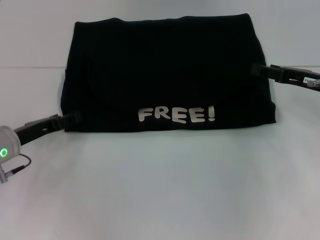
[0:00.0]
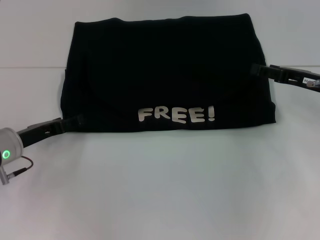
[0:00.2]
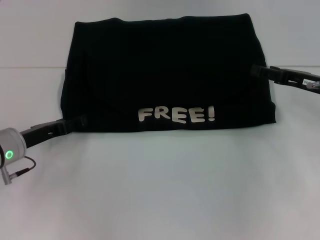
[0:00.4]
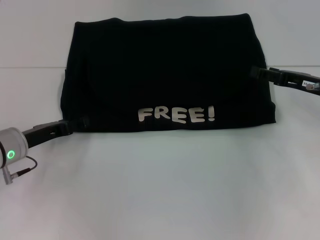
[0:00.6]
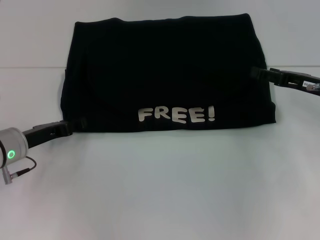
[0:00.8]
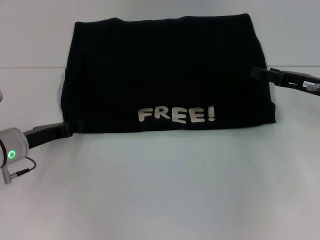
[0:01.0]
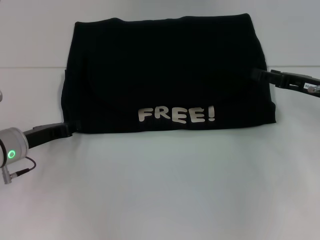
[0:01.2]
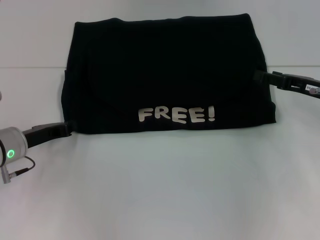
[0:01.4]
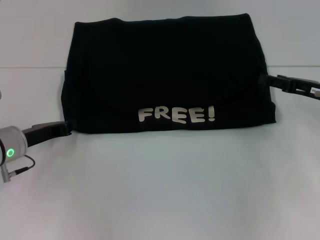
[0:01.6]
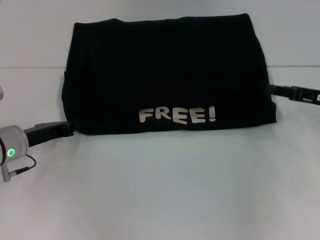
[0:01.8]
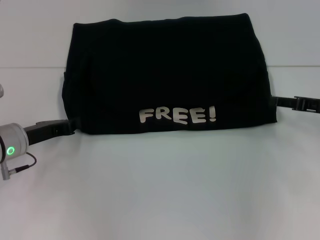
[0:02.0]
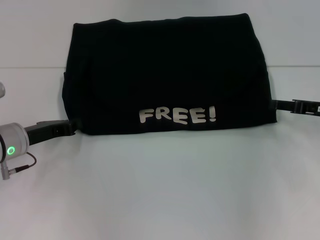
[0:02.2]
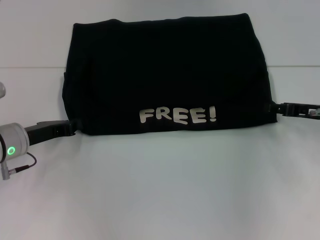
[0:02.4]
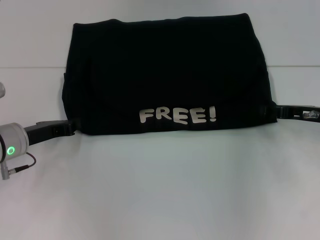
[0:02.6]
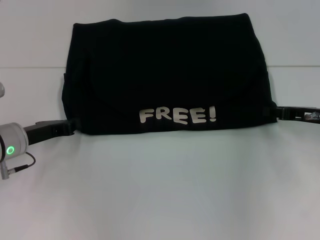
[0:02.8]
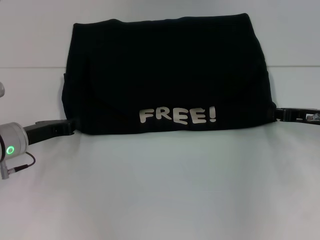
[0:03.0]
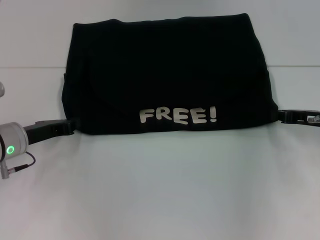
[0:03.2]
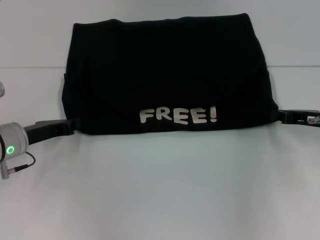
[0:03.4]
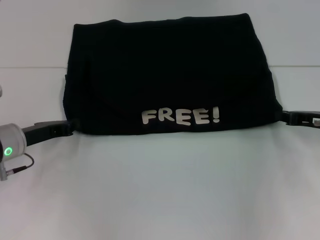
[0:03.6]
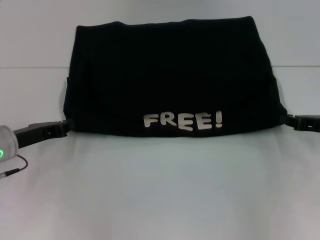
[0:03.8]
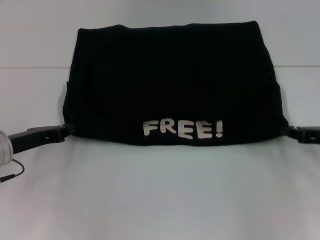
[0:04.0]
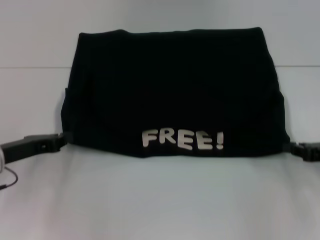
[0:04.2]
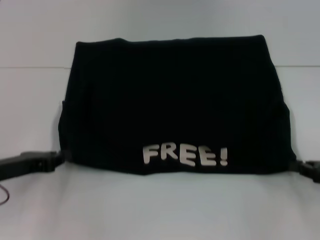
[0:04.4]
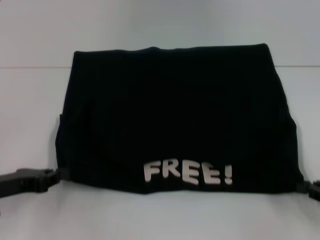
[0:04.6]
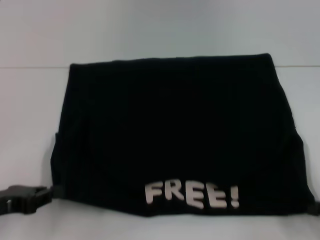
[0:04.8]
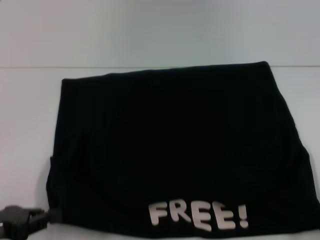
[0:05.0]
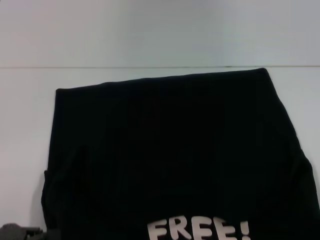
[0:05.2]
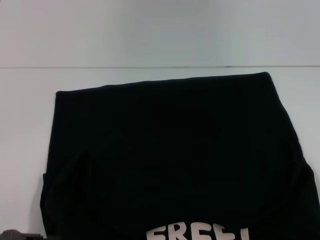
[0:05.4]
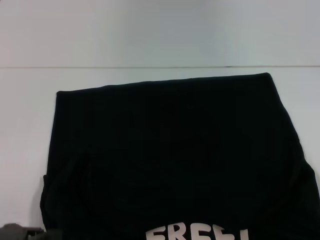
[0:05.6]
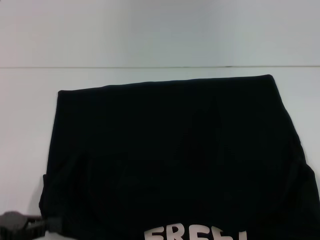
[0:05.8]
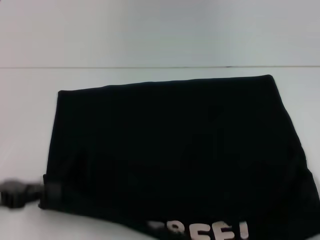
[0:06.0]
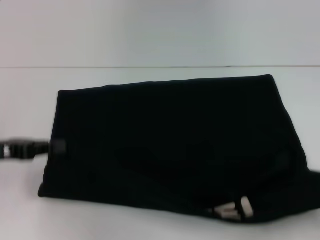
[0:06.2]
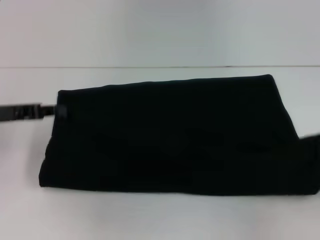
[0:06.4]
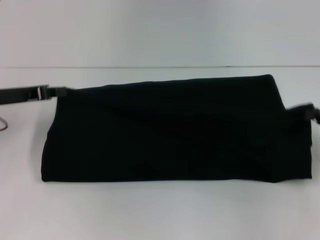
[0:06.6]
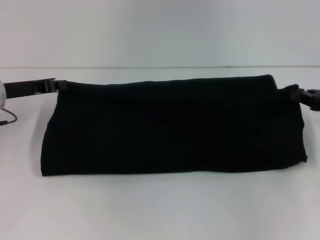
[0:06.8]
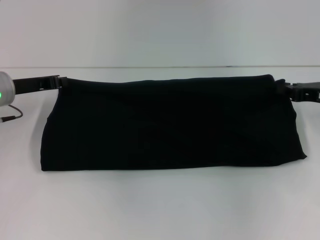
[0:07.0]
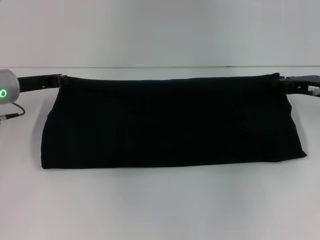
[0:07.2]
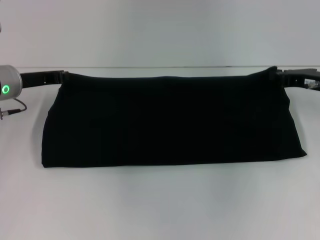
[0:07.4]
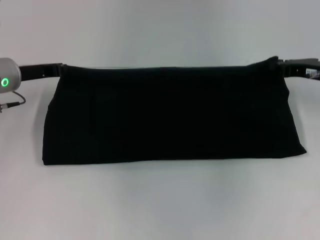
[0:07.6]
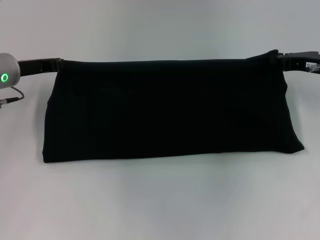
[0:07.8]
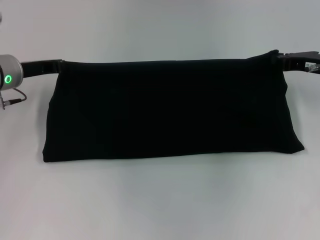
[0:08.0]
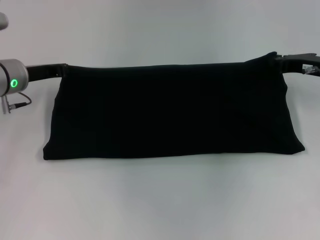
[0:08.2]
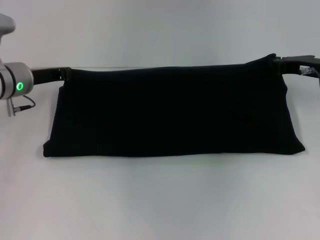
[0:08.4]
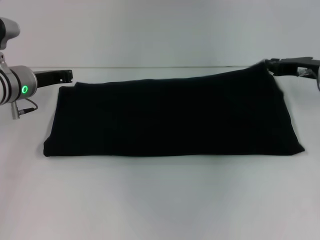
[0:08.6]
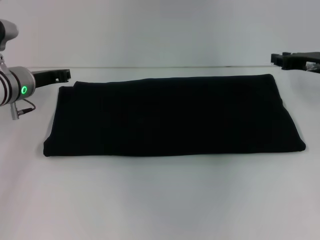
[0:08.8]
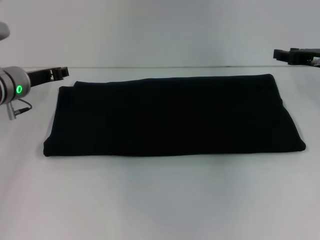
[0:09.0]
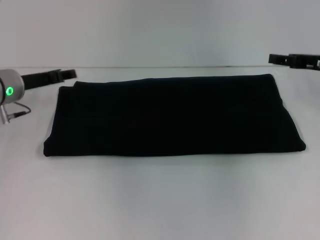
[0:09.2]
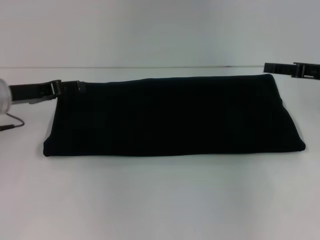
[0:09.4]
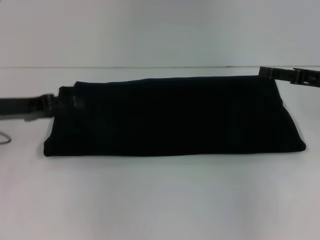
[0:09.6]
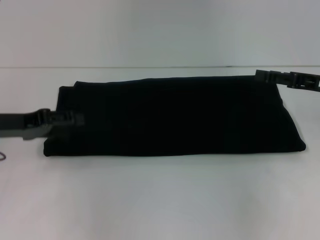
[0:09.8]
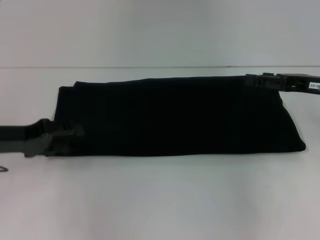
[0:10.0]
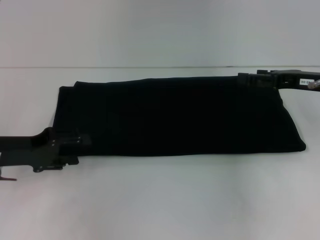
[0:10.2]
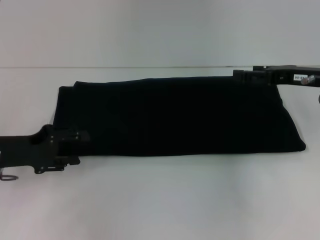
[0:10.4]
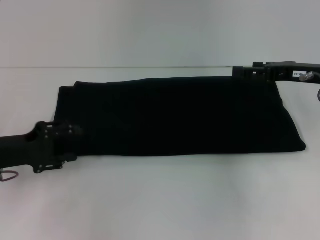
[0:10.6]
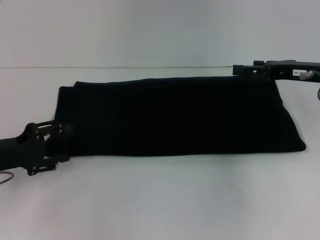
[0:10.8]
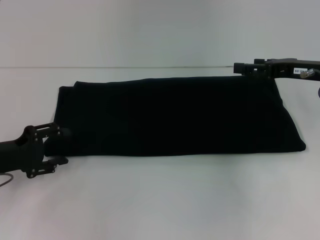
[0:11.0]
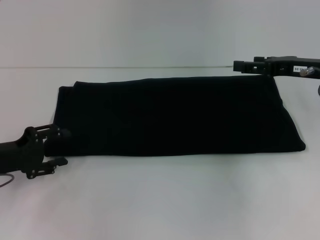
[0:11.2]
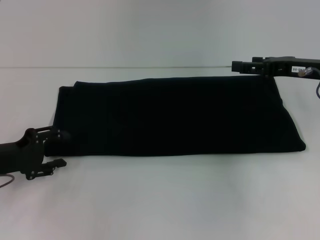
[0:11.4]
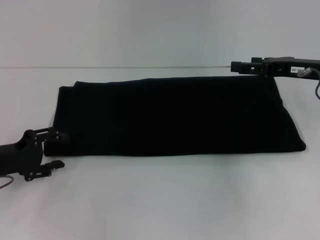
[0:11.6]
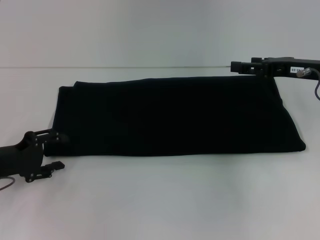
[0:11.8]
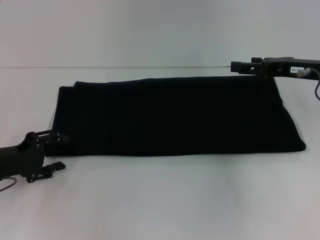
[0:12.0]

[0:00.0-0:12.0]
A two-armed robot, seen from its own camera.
Step, 0:00.0 to 0:05.0: Pull the clothes with your left hand.
Step, 0:00.0 to 0:05.0: Pull the clothes with your right hand.
Step, 0:05.2 to 0:09.6: Fold the clothes with your right hand.
0:00.0 to 0:01.6: The left gripper closes up.
0:01.6 to 0:03.0: The right gripper closes.
0:03.0 to 0:04.4: The left gripper moves backward, approximately 5 cm. The right gripper moves backward and to the right, approximately 10 cm.
0:04.4 to 0:06.0: The left gripper shifts roughly 5 cm backward, while the right gripper travels backward by approximately 10 cm.
0:06.0 to 0:07.6: Both grippers move forward, some 20 cm.
0:07.6 to 0:09.0: The grippers stay close to where they were, moving slightly.
0:09.0 to 0:10.4: The right gripper opens. The left gripper moves backward, about 10 cm, and opens its fingers.

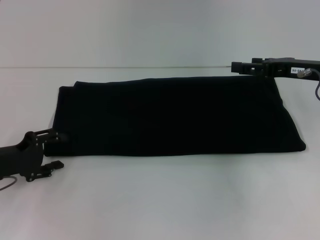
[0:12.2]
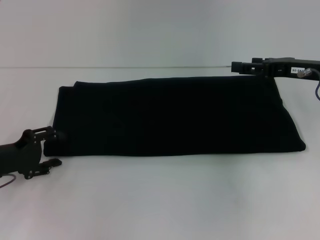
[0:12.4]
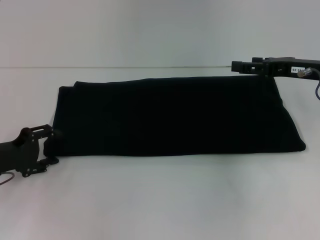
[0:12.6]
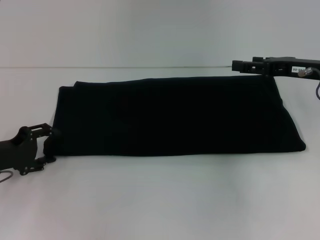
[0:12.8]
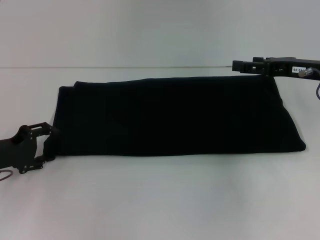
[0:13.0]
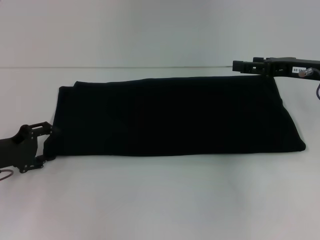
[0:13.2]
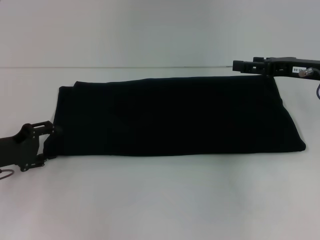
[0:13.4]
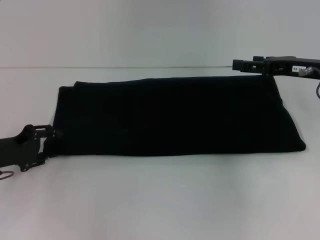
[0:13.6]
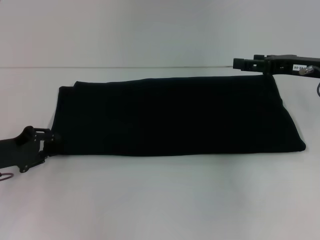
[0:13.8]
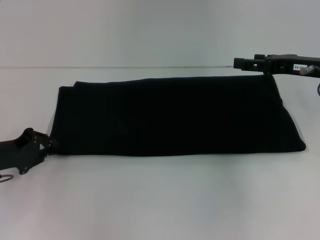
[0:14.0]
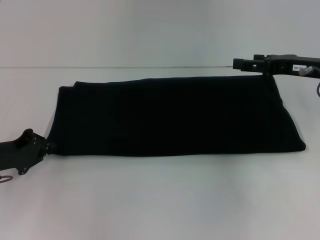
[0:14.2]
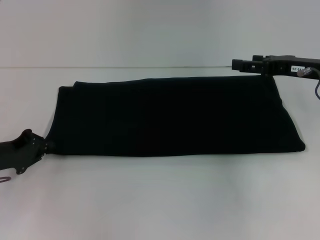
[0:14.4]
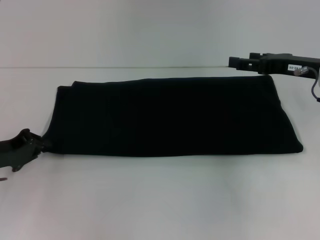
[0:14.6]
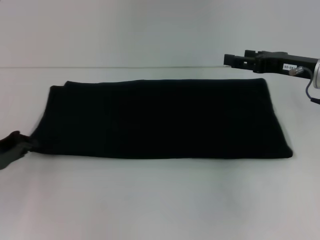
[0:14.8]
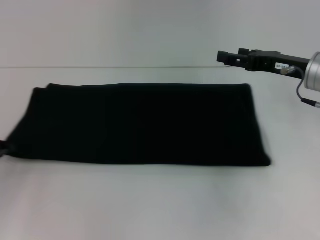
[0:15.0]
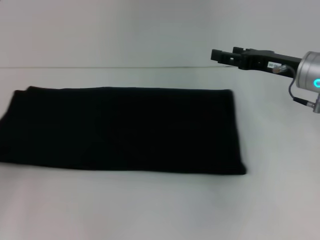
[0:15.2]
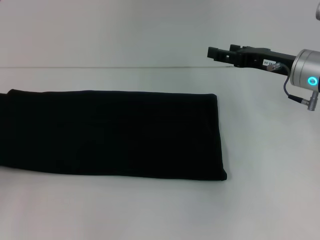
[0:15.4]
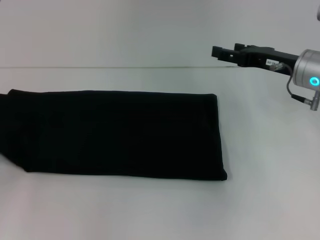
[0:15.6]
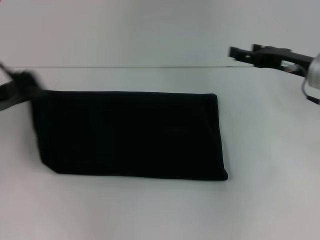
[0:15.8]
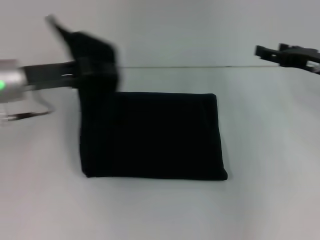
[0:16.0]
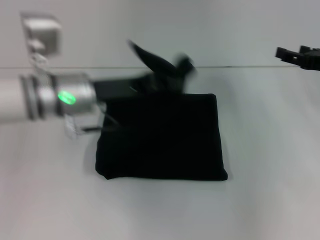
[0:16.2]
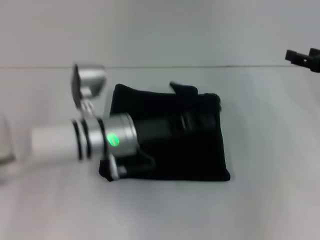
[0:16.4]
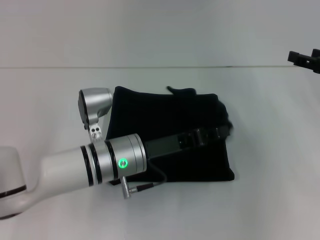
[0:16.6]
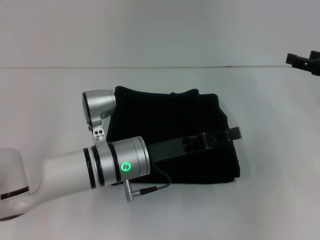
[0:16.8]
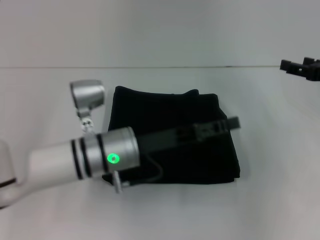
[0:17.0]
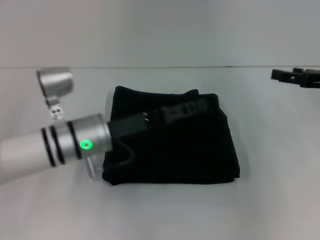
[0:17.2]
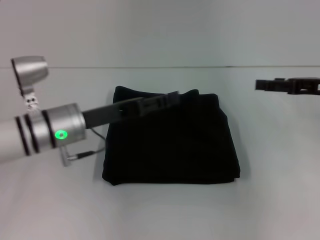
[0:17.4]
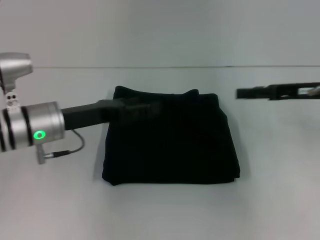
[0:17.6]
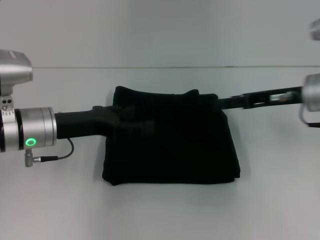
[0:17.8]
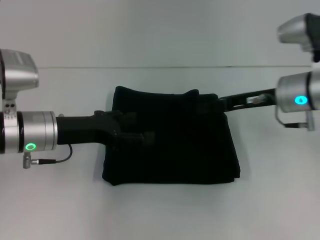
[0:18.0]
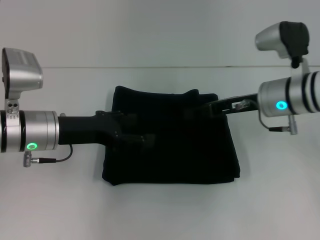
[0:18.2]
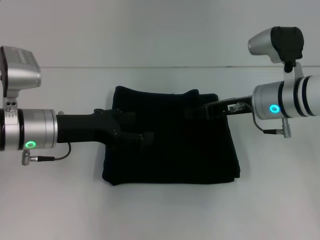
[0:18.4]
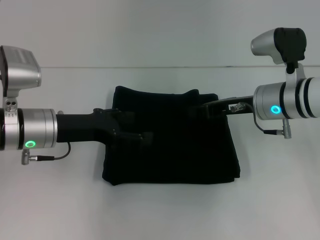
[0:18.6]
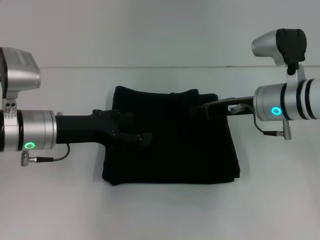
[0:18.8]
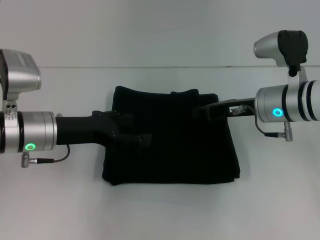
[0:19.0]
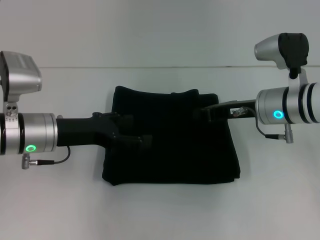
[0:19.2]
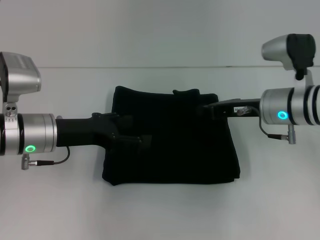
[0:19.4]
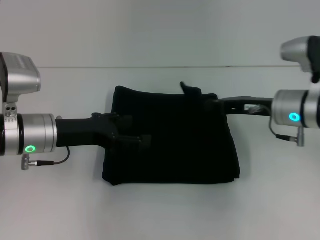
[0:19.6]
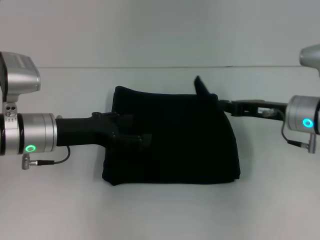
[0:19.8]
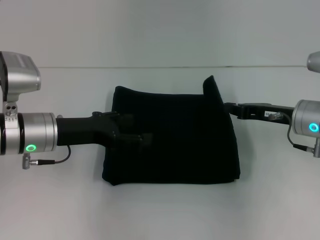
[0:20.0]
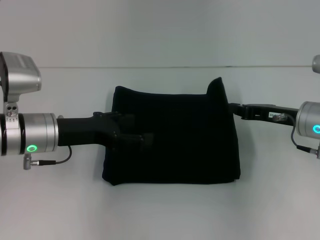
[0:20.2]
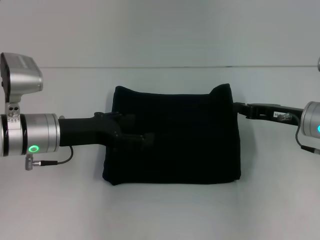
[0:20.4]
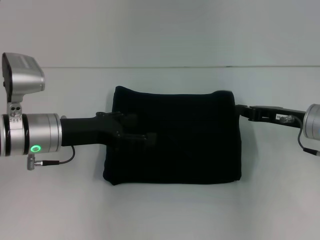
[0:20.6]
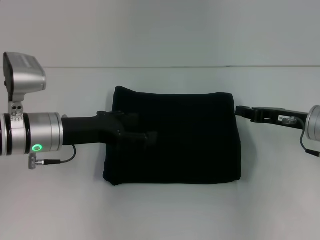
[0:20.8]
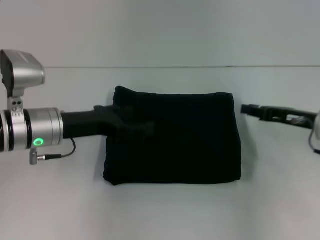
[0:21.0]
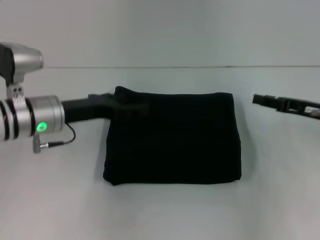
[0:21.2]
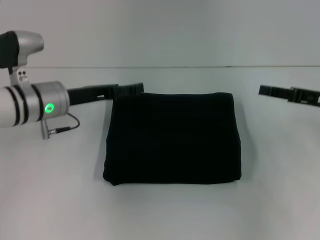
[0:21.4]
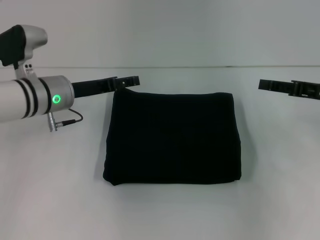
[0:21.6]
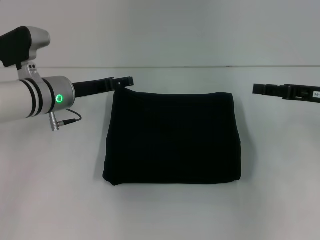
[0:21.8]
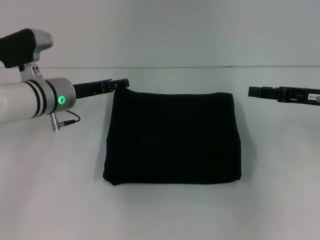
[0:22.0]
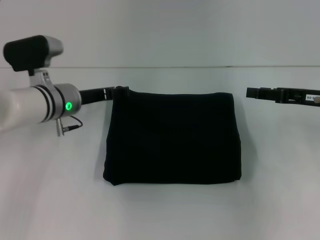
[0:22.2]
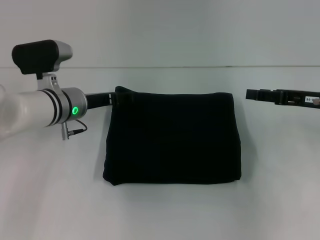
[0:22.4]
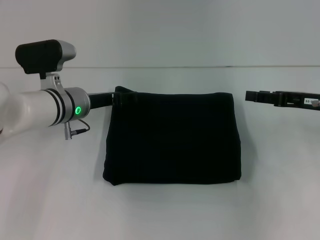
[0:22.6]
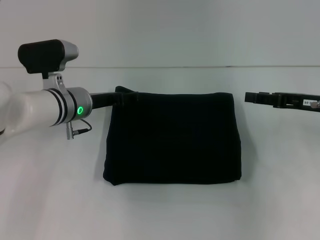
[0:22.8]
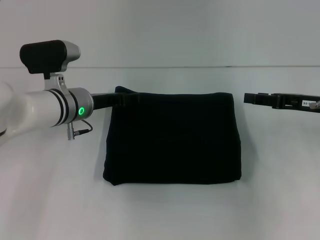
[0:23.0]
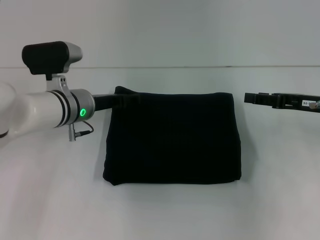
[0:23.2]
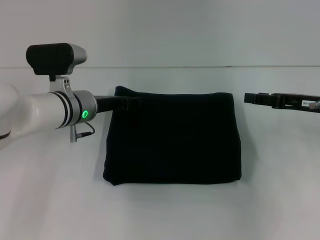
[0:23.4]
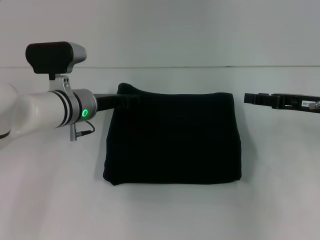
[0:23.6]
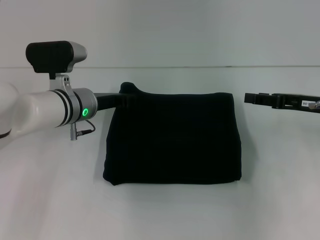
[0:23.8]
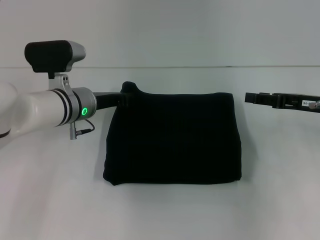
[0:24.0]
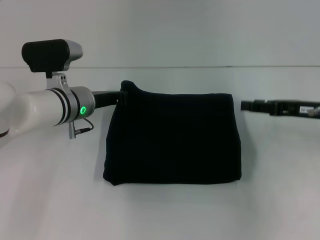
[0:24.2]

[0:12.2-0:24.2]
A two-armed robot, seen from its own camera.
Step, 0:12.2 to 0:17.4: Fold the clothes with your left hand.
0:12.2 to 0:13.8: The grippers move only a little.
0:13.8 to 0:15.2: The left gripper moves to the left, about 10 cm, and closes.
0:15.2 to 0:16.6: The left gripper travels to the right by approximately 30 cm. The right gripper travels to the right by some 10 cm.
0:16.6 to 0:18.2: Both grippers travel together to the left, some 15 cm. The left gripper opens.
0:18.2 to 0:19.8: The right gripper shifts by some 5 cm, and closes its fingers.
0:19.8 to 0:21.2: The right gripper is displaced to the right by about 5 cm.
0:21.2 to 0:22.6: The right gripper opens; the left gripper shifts by roughly 5 cm.
0:22.6 to 0:24.2: The left gripper closes up.
